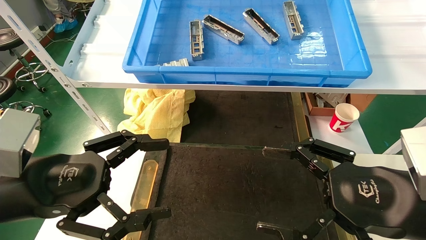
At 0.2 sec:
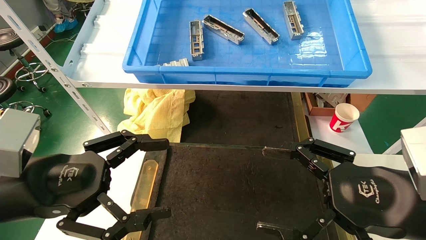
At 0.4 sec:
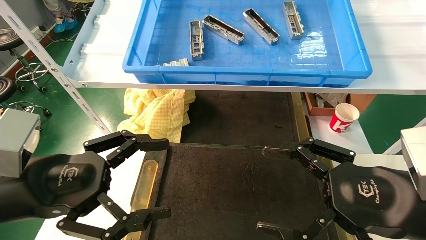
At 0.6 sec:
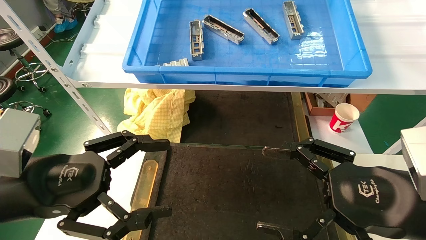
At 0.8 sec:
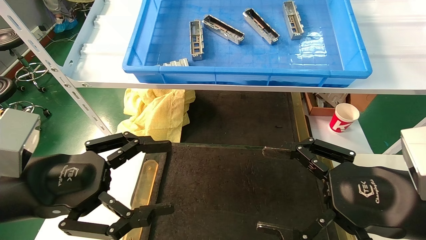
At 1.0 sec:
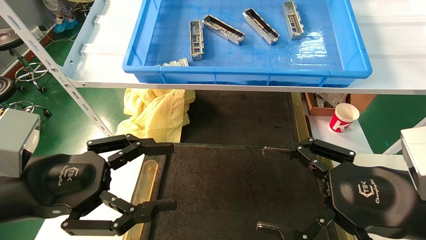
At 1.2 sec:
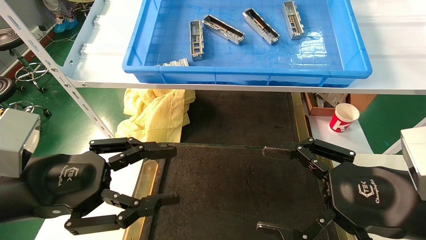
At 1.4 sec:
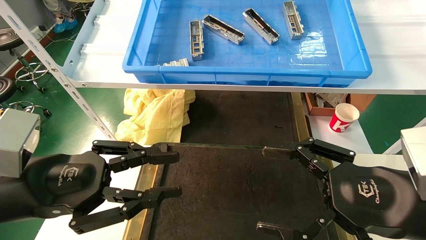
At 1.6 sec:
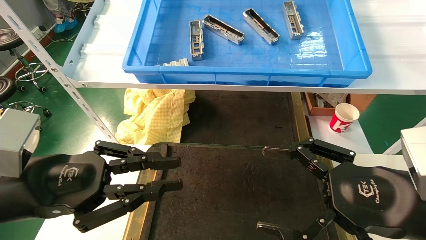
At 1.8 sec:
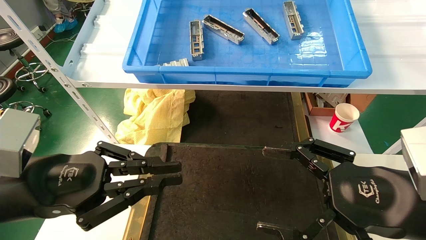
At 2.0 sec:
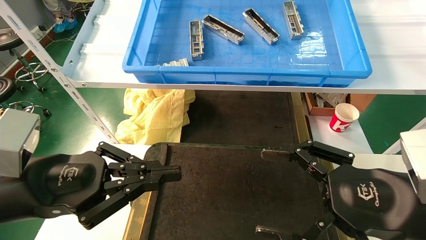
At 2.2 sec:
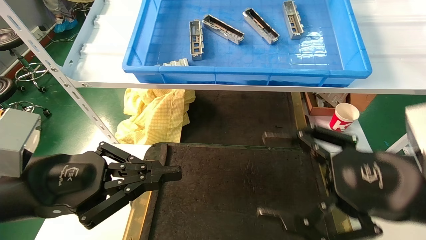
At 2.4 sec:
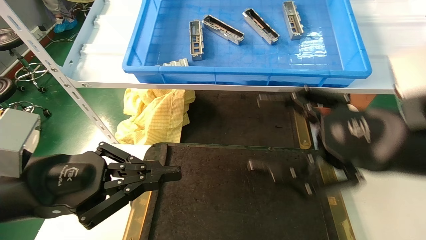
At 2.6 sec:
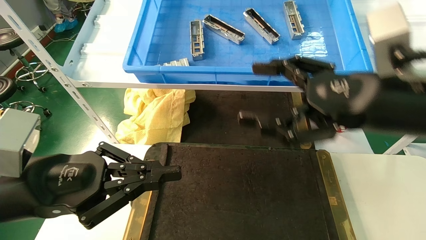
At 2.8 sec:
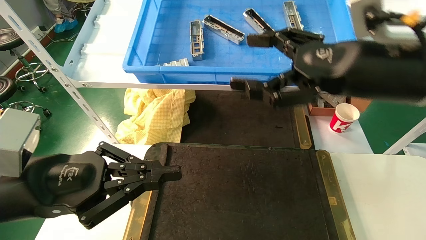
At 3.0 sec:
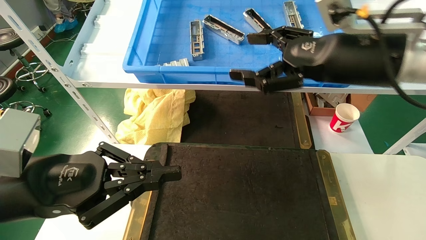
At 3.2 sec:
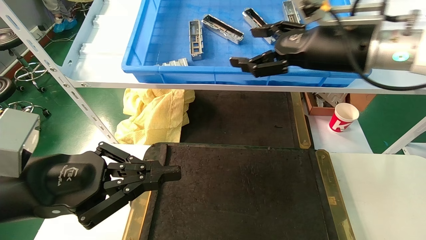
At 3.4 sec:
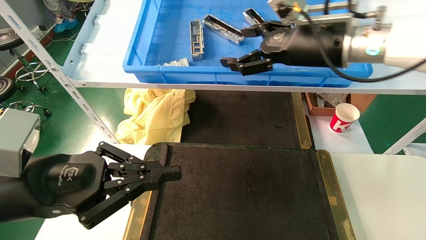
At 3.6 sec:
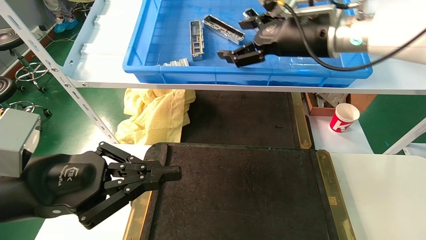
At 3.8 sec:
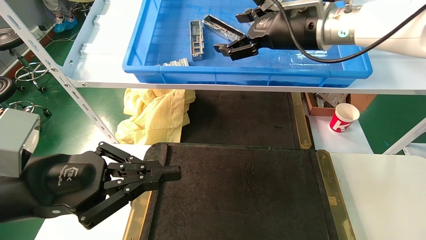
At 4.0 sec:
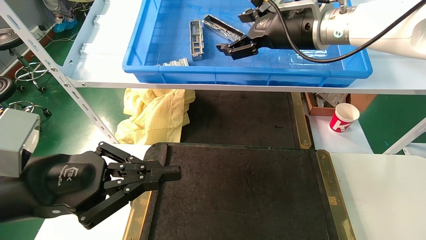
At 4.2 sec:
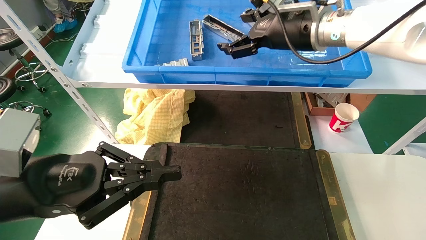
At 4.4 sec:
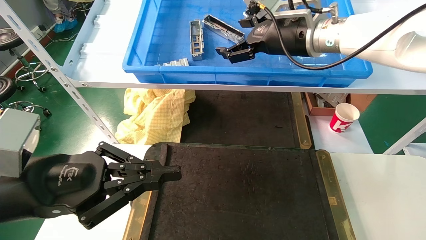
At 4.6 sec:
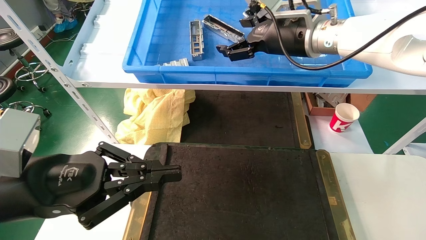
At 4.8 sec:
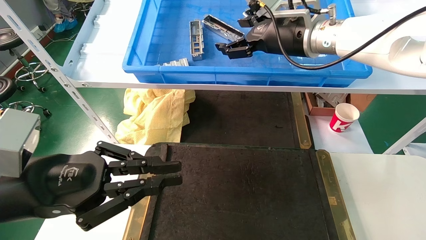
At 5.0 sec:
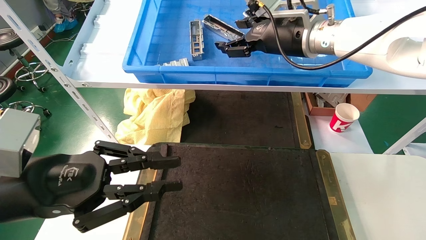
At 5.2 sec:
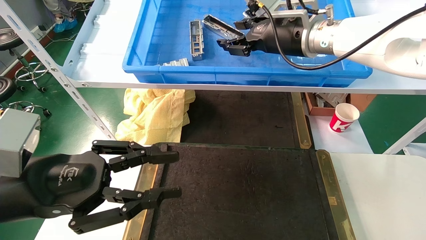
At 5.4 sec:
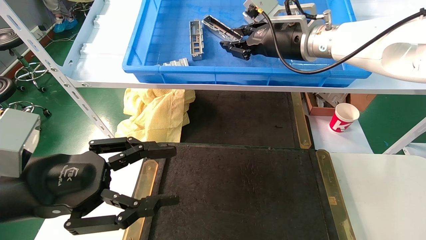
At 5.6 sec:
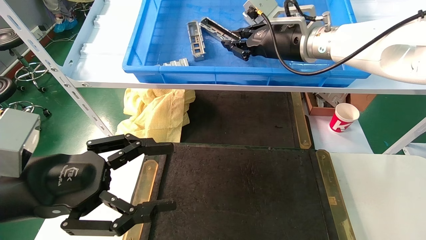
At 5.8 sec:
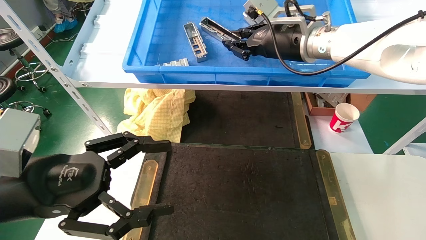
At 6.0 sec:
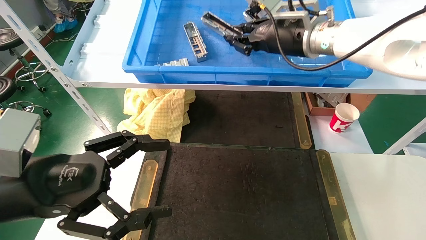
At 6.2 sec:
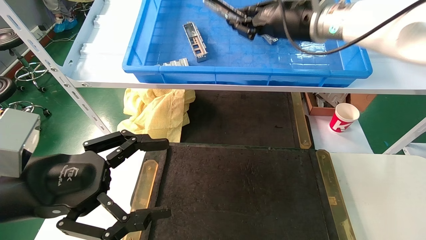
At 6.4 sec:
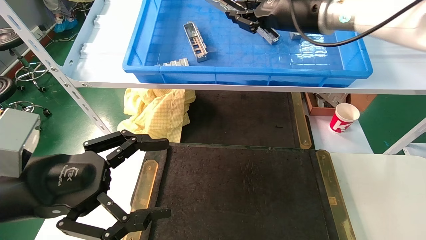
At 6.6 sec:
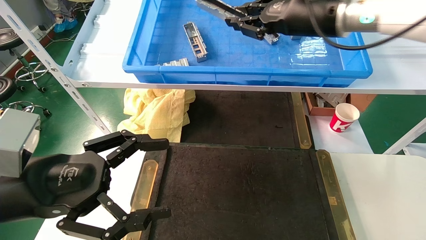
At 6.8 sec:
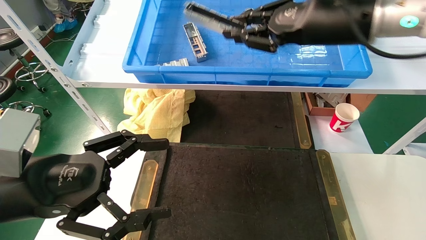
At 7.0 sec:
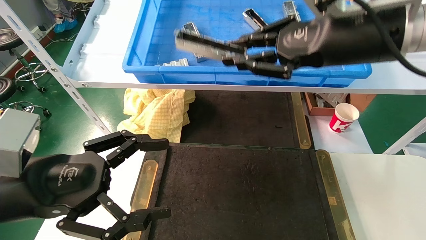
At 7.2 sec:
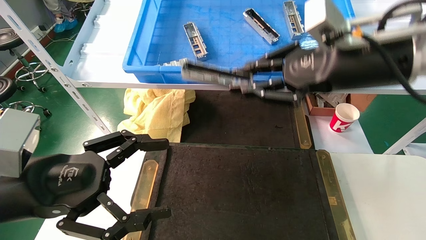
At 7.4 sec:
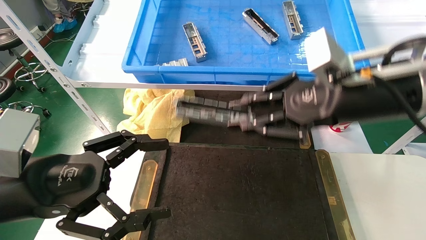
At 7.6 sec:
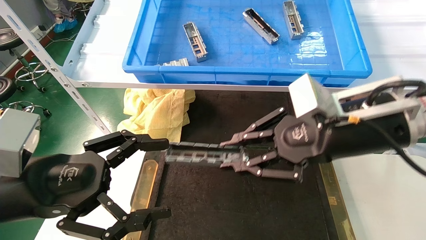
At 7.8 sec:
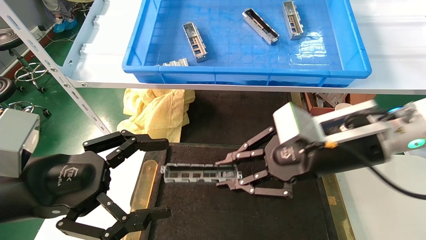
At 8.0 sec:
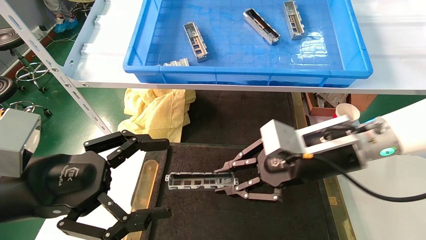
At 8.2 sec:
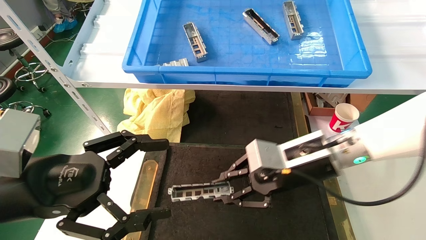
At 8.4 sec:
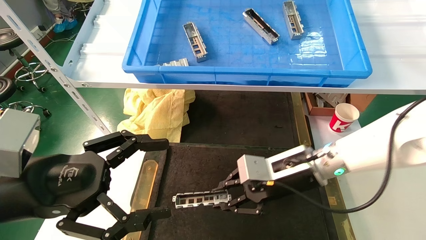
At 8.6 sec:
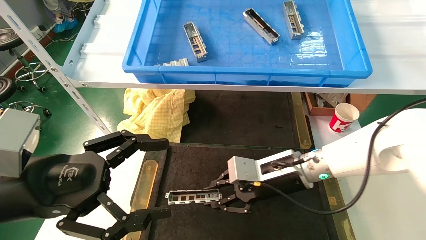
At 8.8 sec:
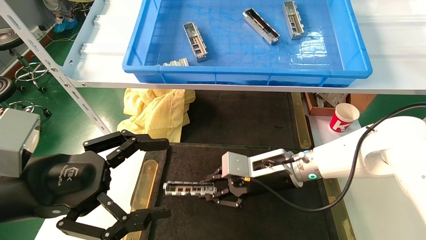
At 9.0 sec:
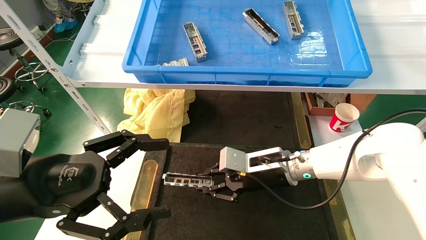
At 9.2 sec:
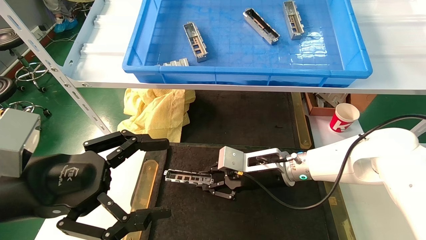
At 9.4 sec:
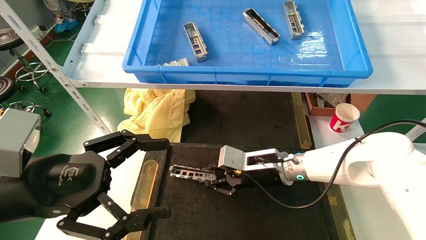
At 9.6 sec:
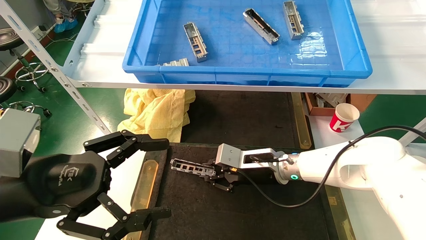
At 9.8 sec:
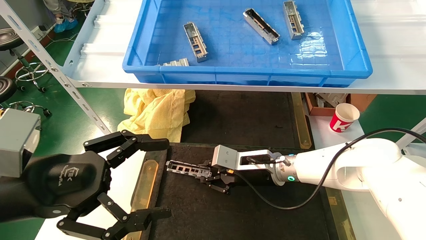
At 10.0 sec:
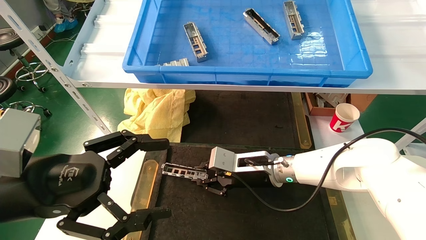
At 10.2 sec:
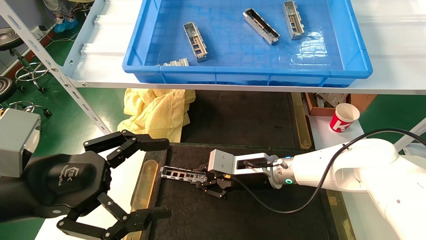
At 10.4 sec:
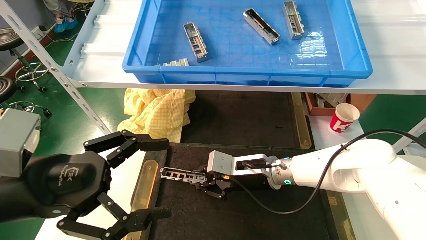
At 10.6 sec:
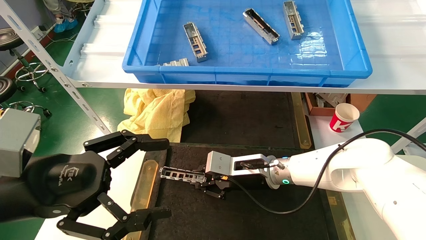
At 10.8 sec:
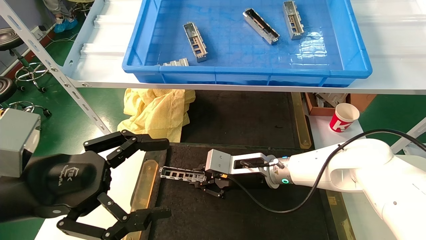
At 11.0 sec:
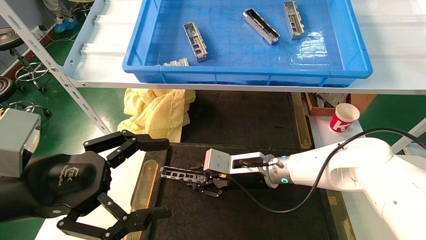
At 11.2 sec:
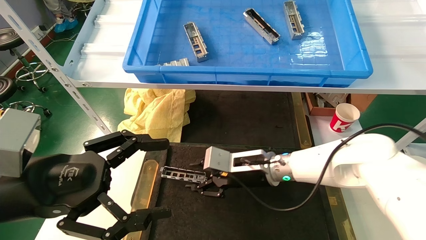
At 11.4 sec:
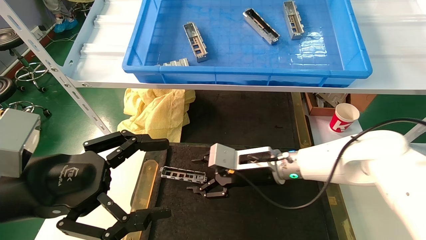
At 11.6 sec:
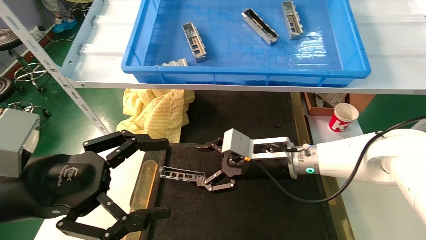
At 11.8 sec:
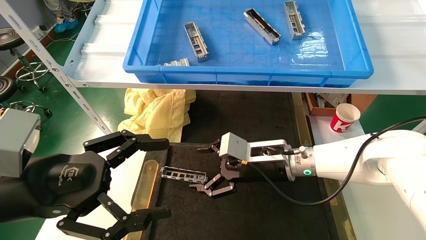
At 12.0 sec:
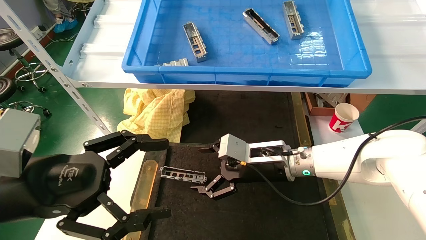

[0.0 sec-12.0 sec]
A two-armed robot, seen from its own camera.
Task of the whole recording: grasp the part and place them on the black container.
Step, 2.4 sec to 5.8 sec: Pick up and lift the front USB bracket from the feeding area.
Step, 6.0 sec to 11.2 sec: Place the front USB bracket into the box.
0.0 sec to 1.6 sec: The left gripper closes its fingers.
1.6 sec to 3.0 sec: The right gripper goes about 20 cm upward and forward.
3.0 sec to 4.4 sec: The right gripper heads forward and to the left, covering some 10 cm.
4.4 sec to 6.0 sec: The left gripper opens up. Meanwhile the right gripper closes up.
6.0 sec to 7.6 sec: The right gripper moves backward and downward, roughly 20 cm.
7.6 sec to 9.0 sec: The right gripper moves downward, forward and to the left, roughly 20 cm.
9.0 sec to 10.4 sec: The grippers move only a little.
10.4 sec to 12.0 sec: The right gripper changes place by approximately 5 cm, and opens.

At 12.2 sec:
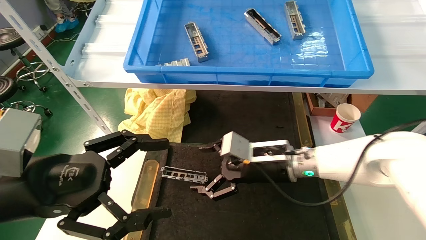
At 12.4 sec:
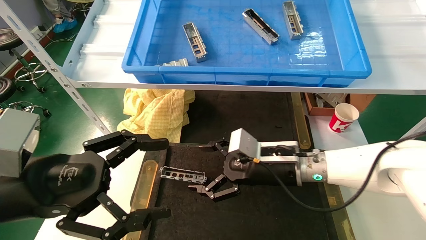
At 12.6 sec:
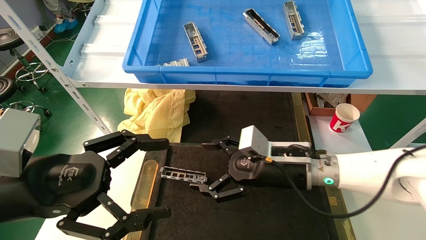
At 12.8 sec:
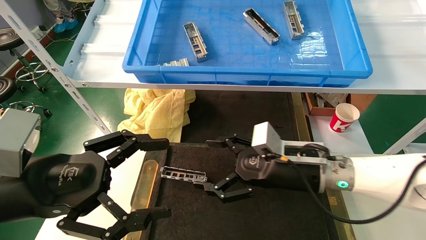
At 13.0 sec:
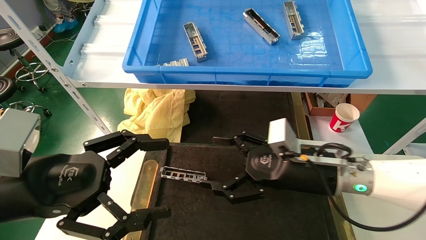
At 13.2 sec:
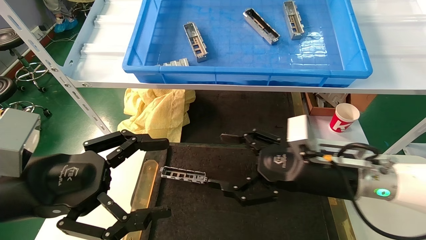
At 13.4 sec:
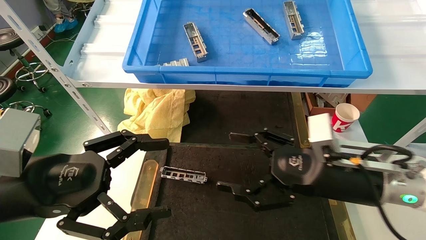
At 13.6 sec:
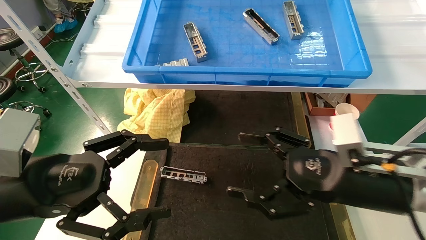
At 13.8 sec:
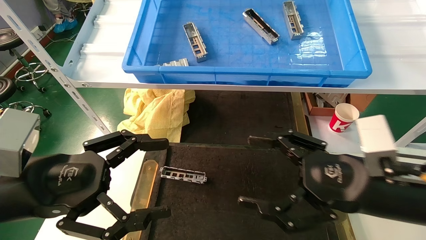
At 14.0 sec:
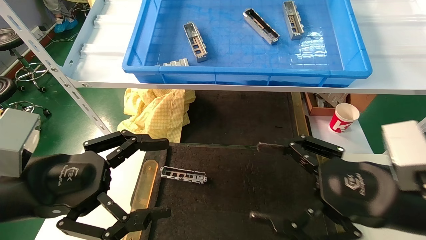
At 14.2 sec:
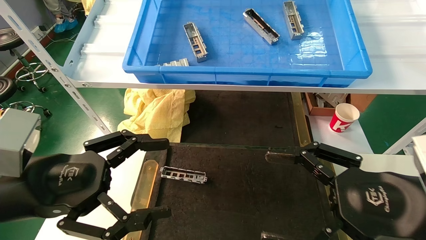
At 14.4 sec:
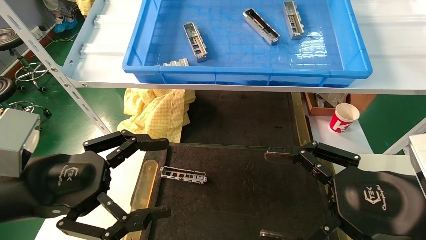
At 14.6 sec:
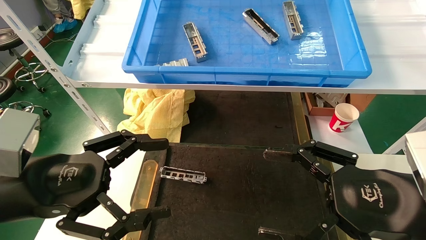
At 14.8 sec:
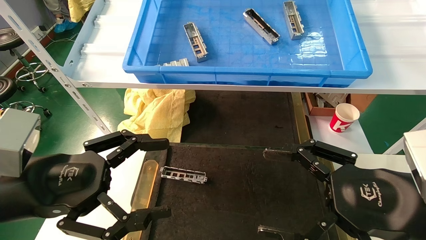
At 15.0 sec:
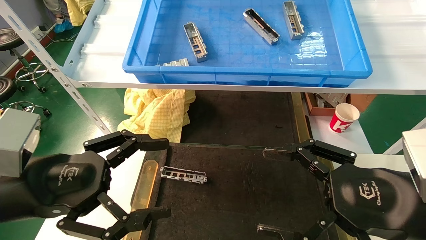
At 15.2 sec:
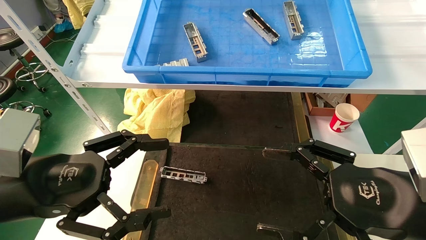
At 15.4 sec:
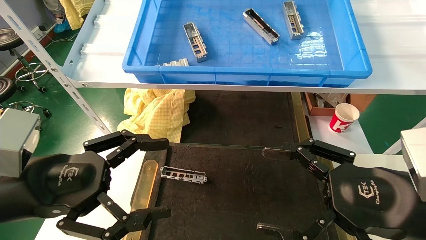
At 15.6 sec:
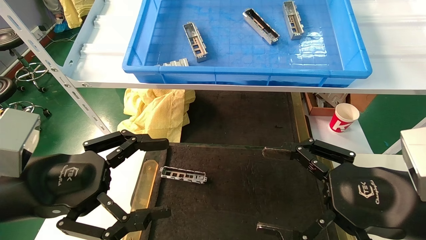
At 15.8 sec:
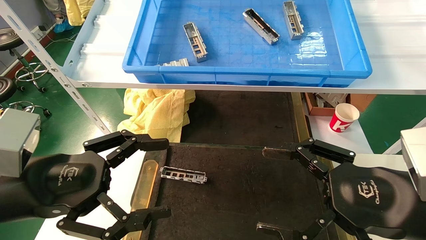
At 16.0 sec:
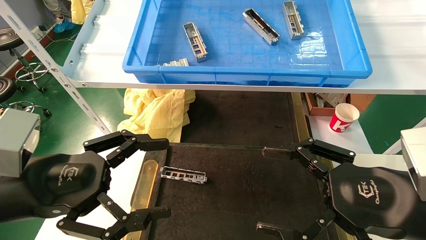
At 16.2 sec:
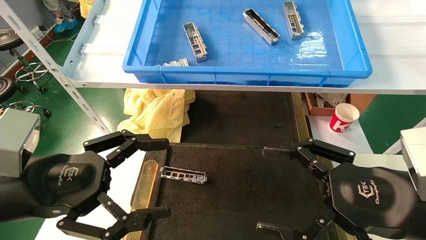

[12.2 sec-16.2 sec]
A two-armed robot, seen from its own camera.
Task of the whole recording: grasp the part and place them on the black container.
12.2 sec to 13.6 sec: The right gripper goes some 15 cm backward and to the right.
13.6 sec to 14.8 sec: The right gripper is displaced backward by about 5 cm.
14.8 sec to 16.2 sec: The two grippers keep their place.
